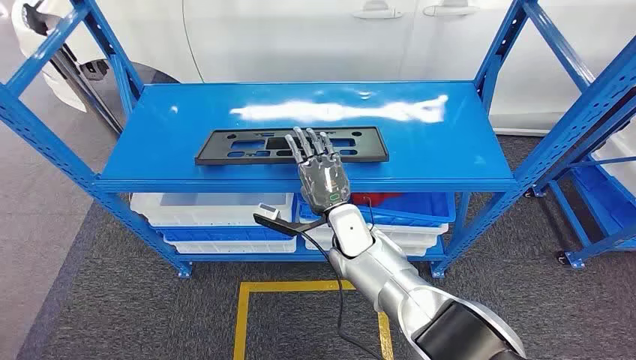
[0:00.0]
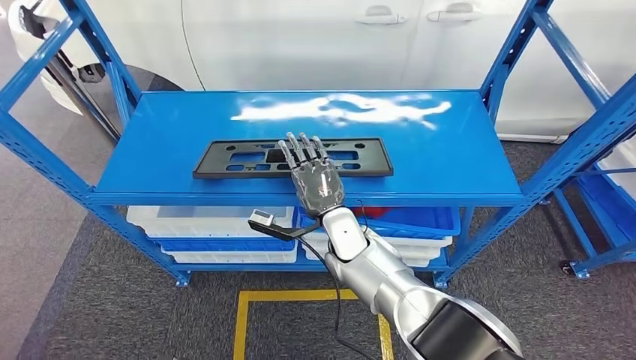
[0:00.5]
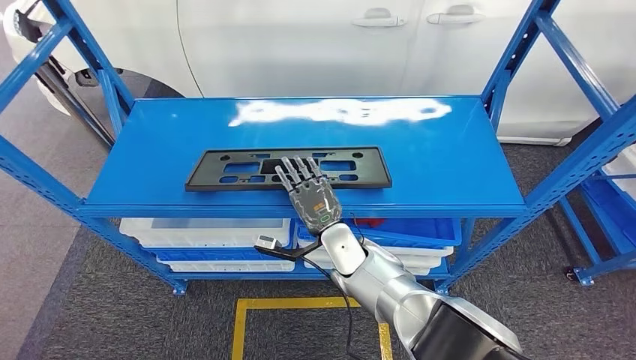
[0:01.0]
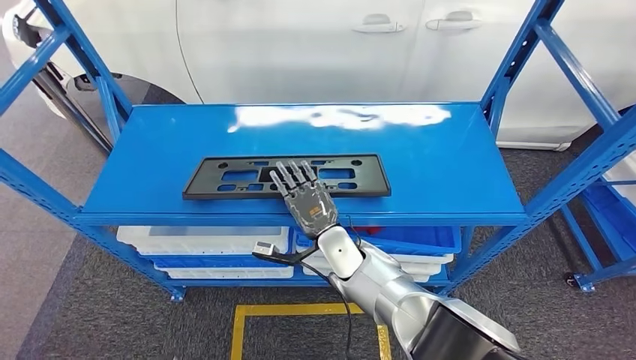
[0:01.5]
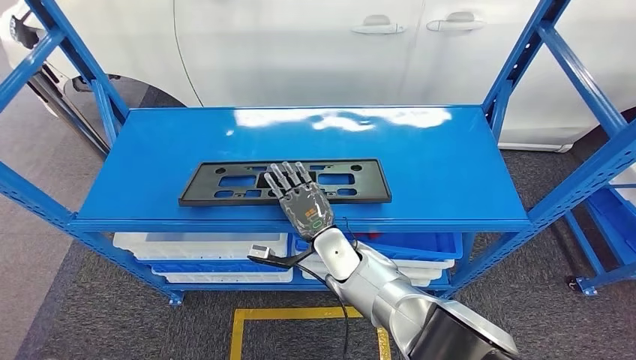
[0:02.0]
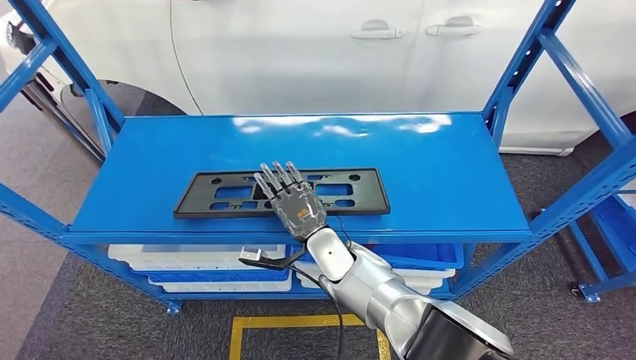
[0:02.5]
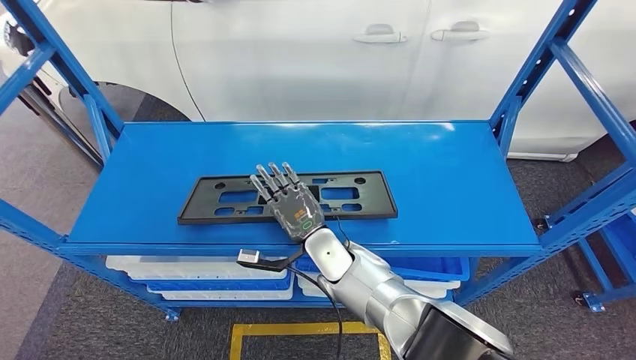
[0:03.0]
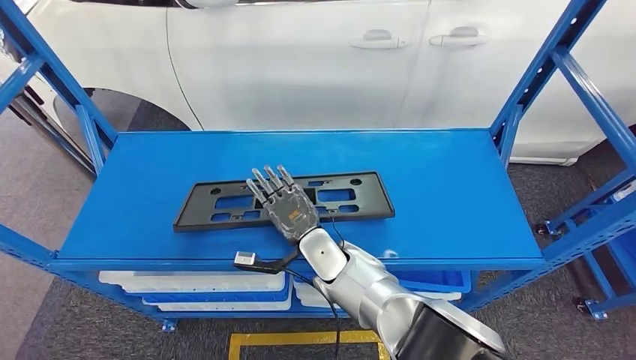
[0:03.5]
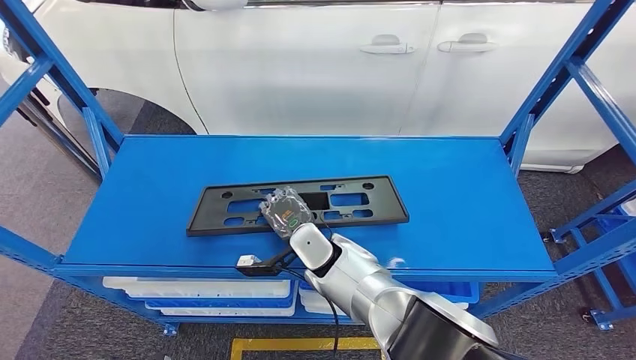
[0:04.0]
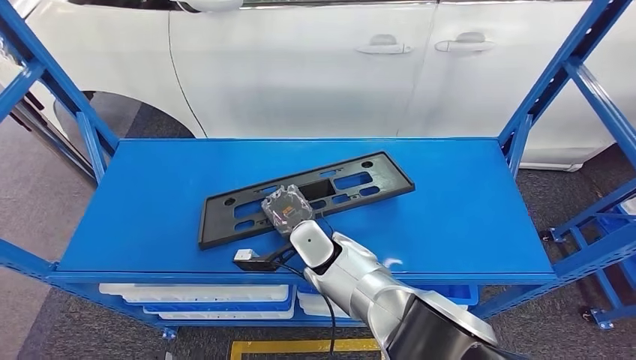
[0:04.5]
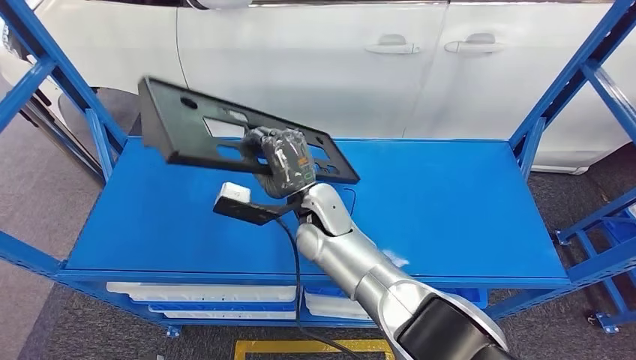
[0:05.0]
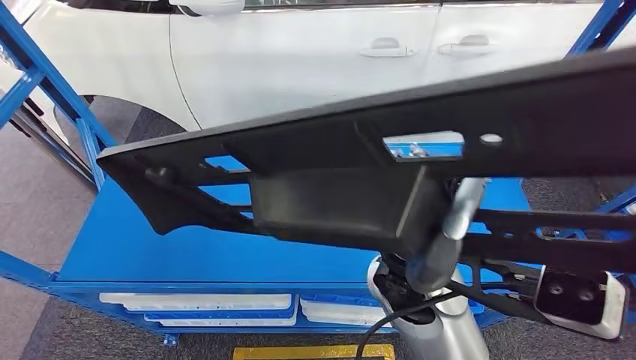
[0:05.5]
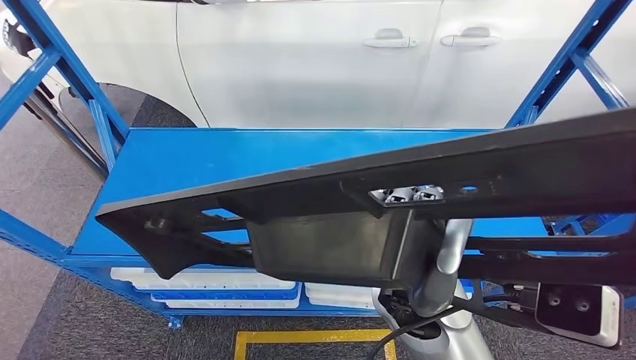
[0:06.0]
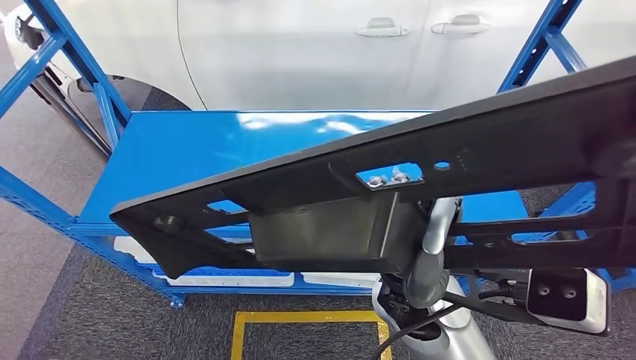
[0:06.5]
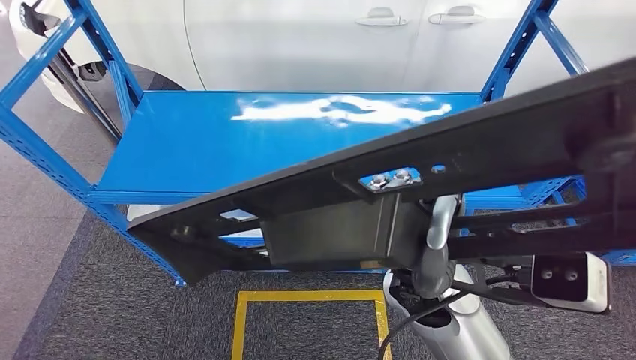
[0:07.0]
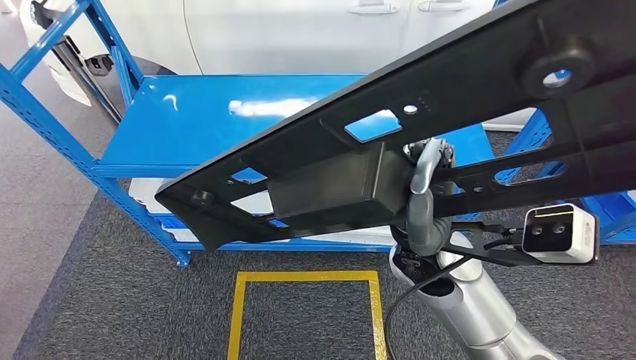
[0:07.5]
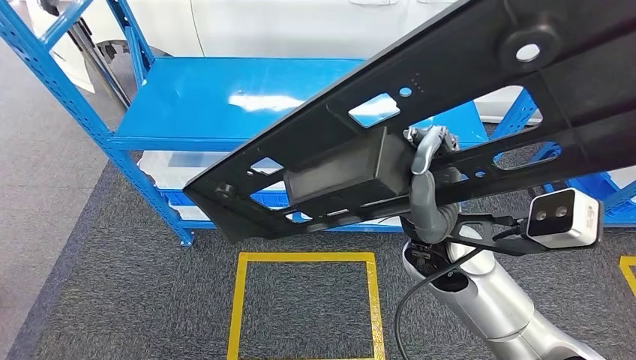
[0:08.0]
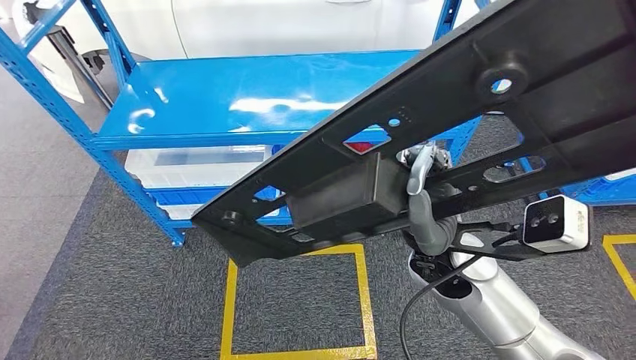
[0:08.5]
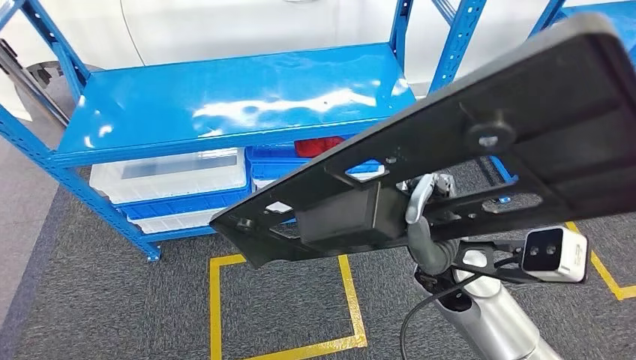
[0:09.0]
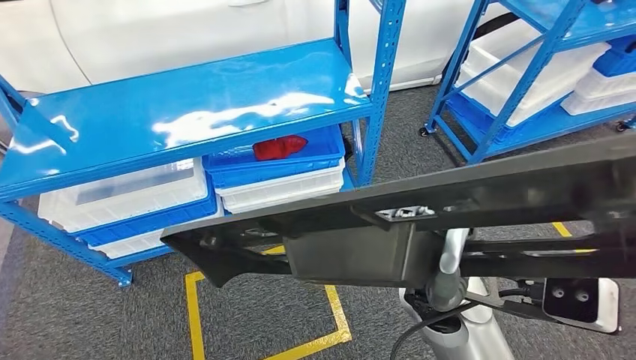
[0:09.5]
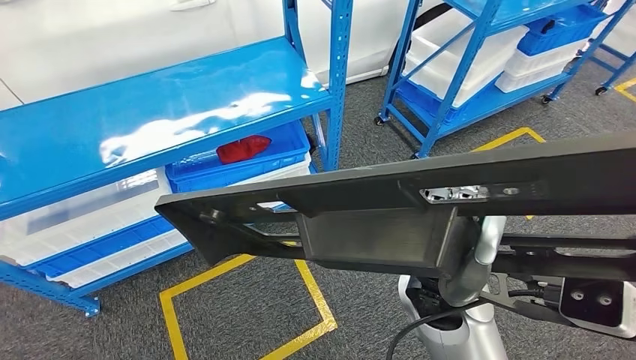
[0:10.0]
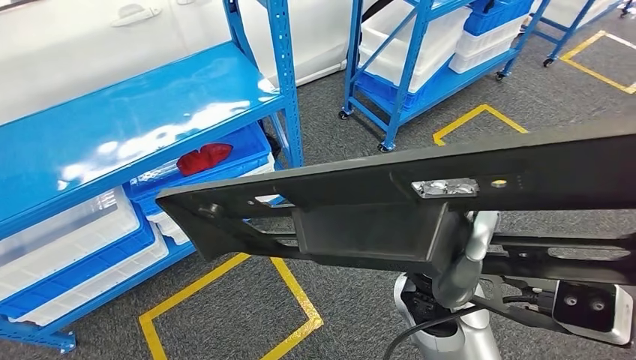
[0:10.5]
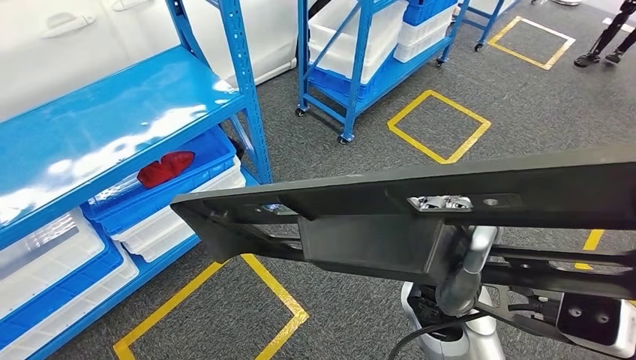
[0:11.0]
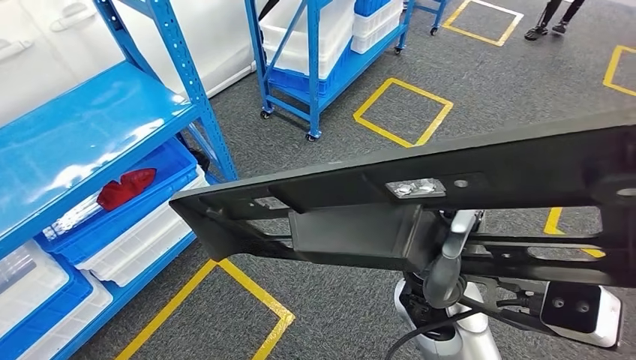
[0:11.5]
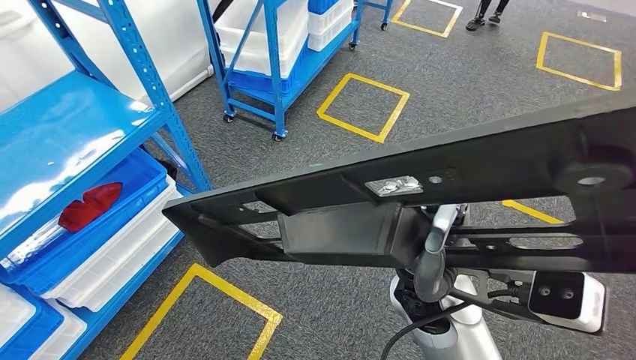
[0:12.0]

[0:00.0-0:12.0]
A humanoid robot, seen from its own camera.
Step, 0:00.0 to 0:05.0: Pick up the large material from the shelf.

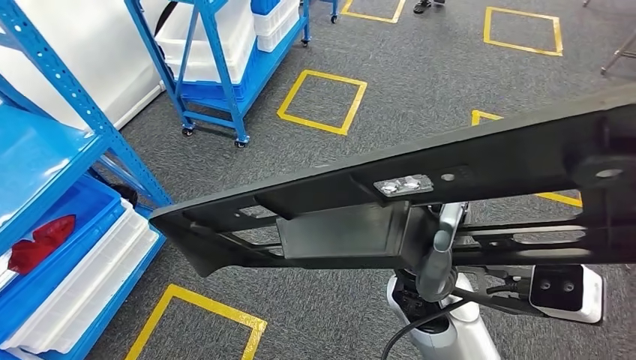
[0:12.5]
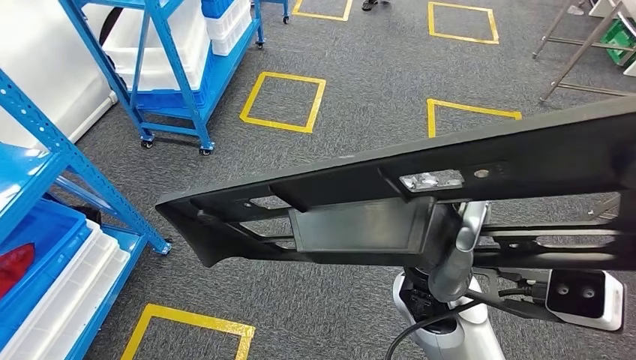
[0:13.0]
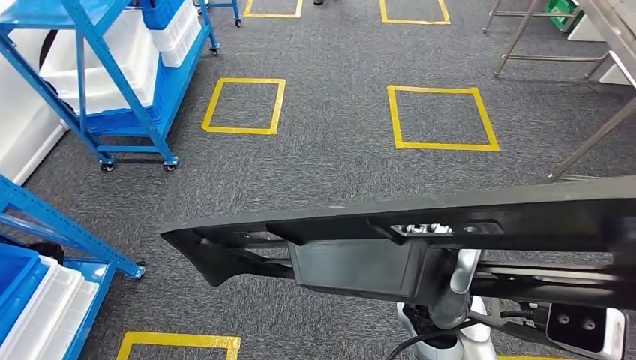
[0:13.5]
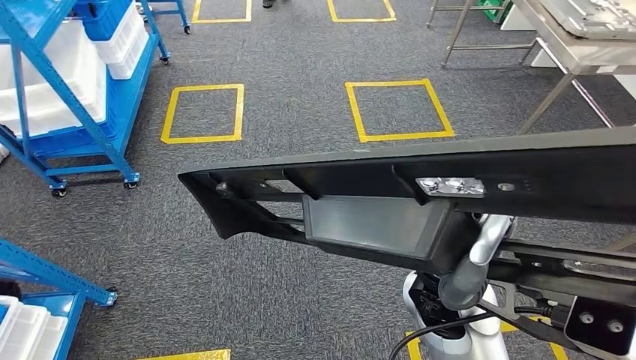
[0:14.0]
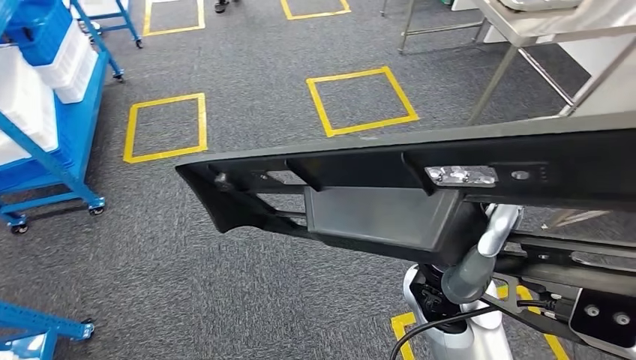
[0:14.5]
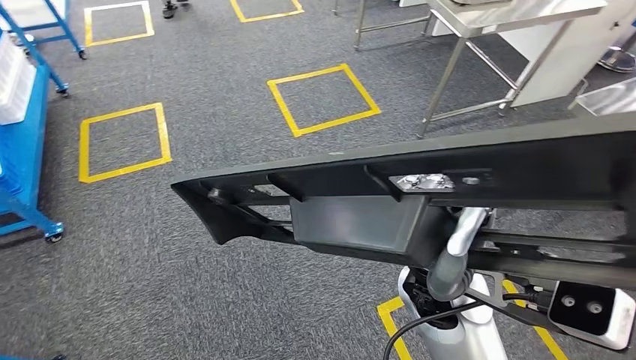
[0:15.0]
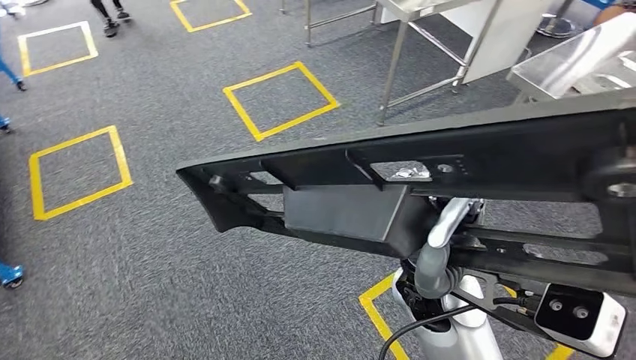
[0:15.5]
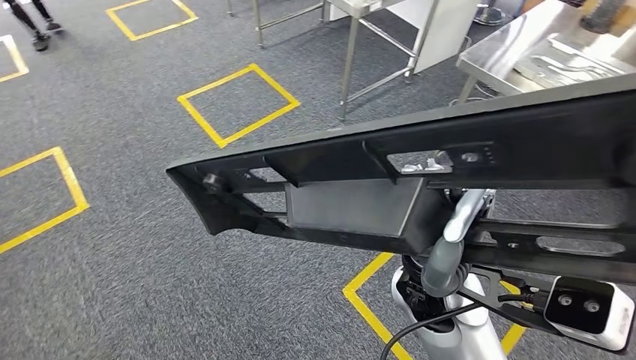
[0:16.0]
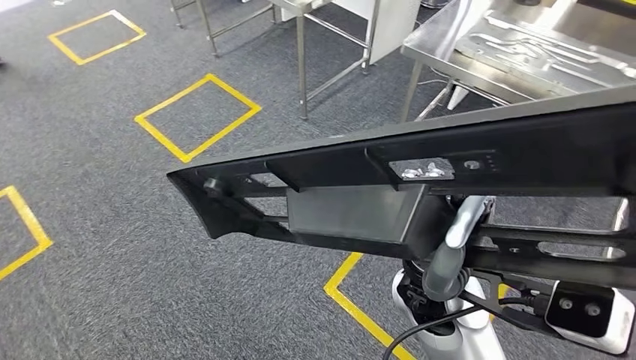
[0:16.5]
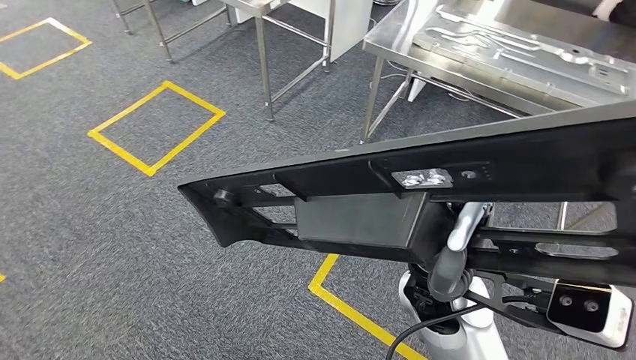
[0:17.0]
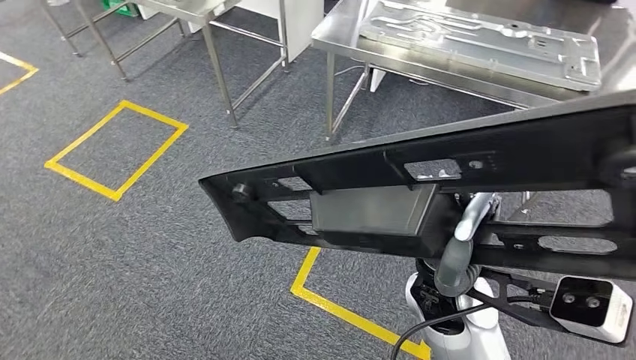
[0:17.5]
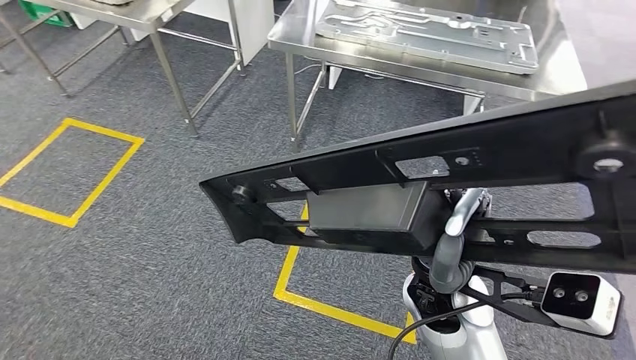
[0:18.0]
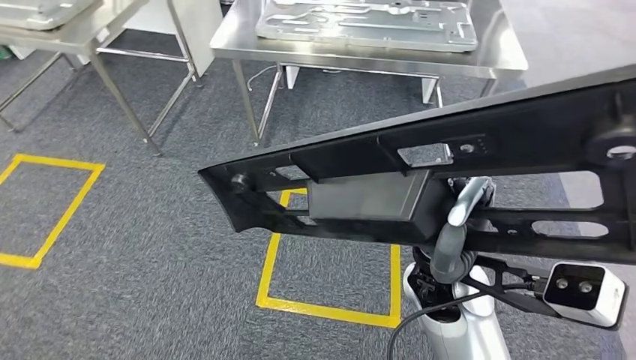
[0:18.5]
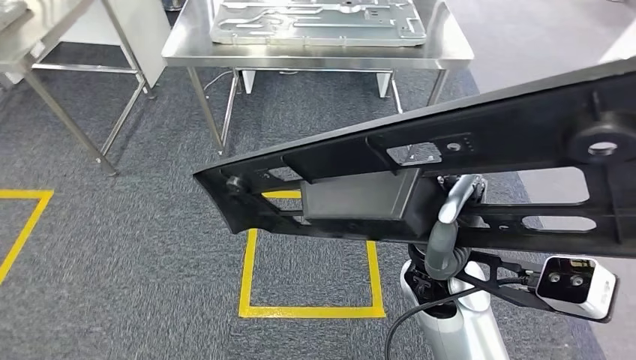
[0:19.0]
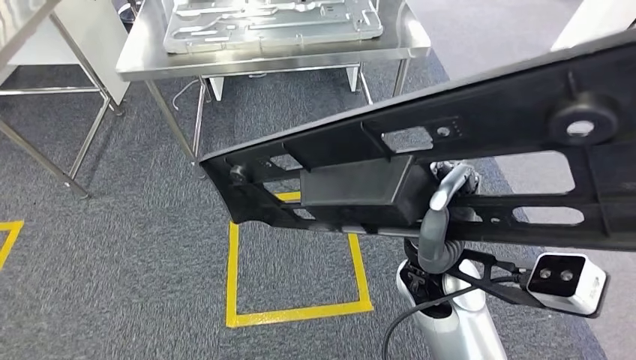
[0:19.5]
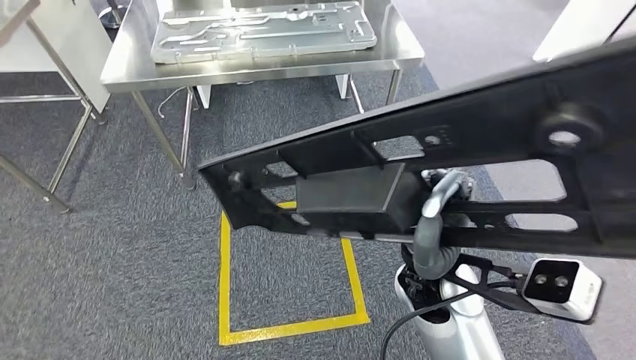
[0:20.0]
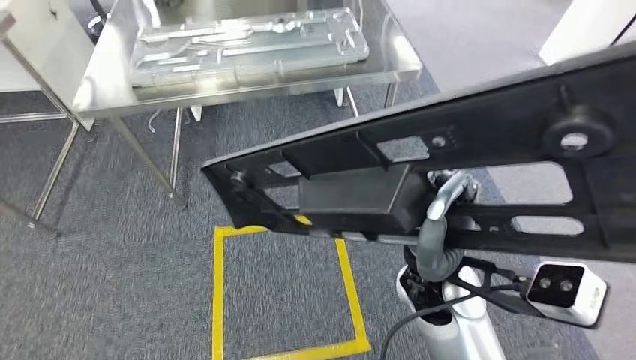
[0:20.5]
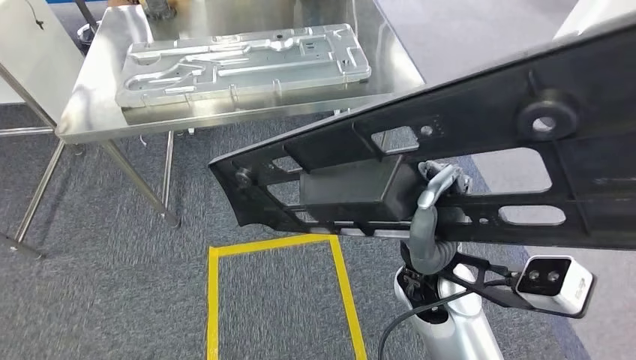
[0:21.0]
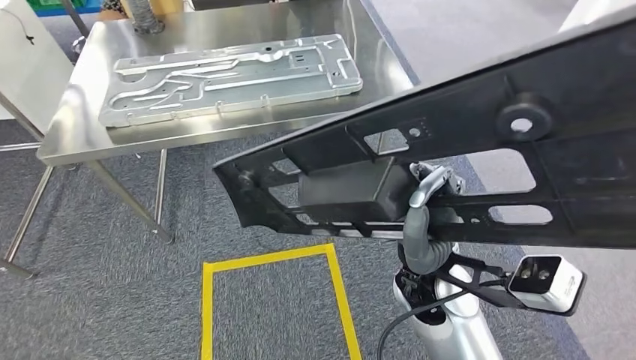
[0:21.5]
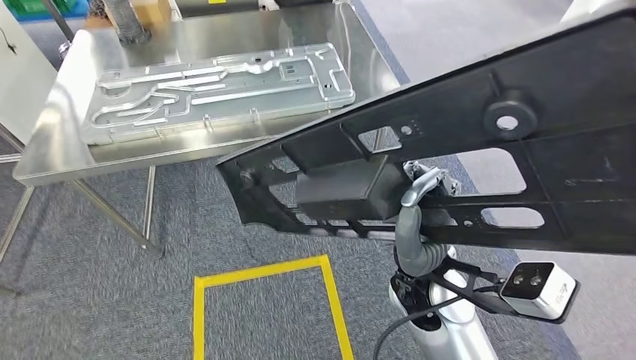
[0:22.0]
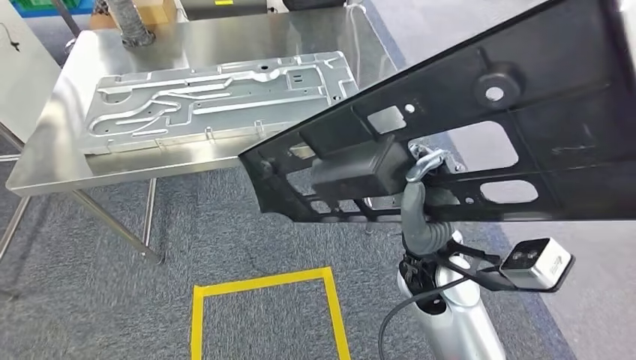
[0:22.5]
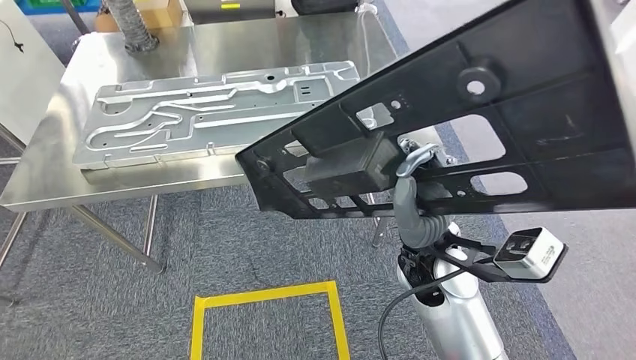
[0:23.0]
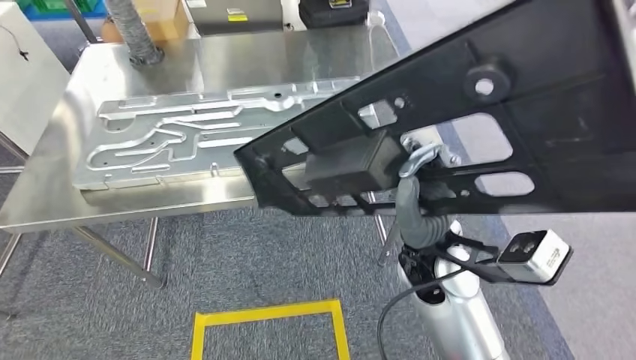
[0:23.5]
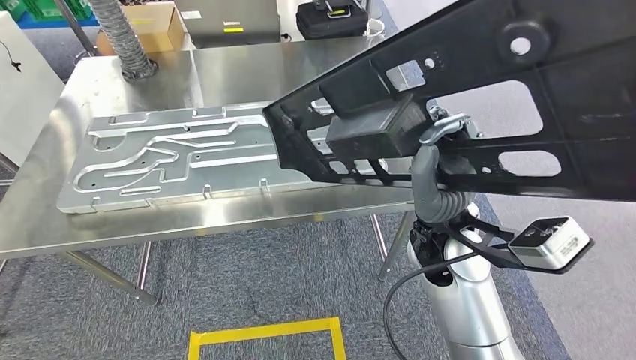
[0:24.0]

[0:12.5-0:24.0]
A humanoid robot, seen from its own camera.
Step, 0:12.5 to 0:23.0: Move the large material to the front of the workbench.
